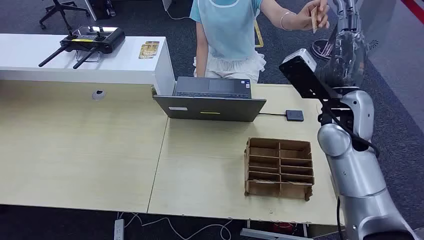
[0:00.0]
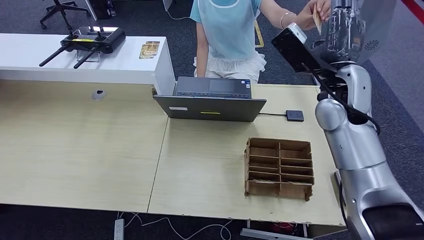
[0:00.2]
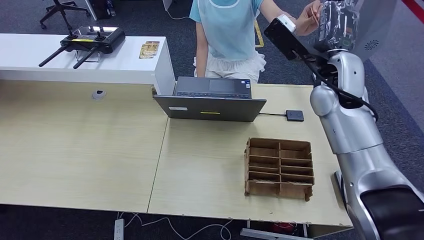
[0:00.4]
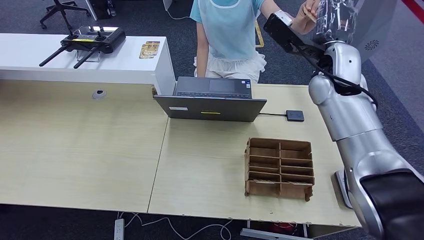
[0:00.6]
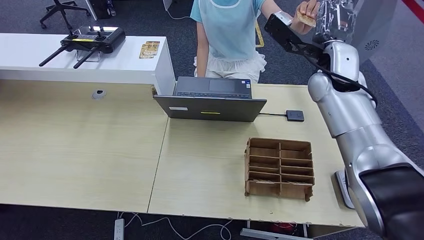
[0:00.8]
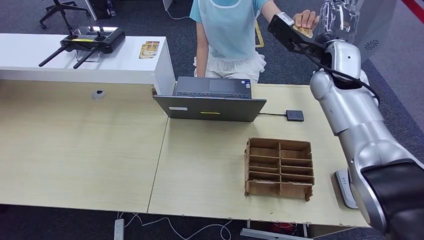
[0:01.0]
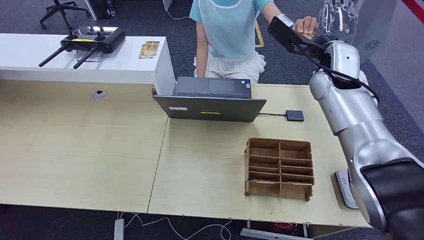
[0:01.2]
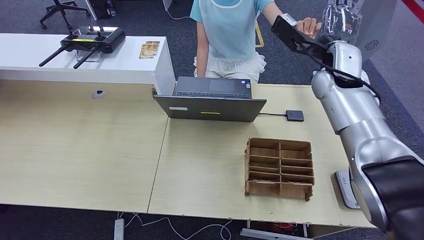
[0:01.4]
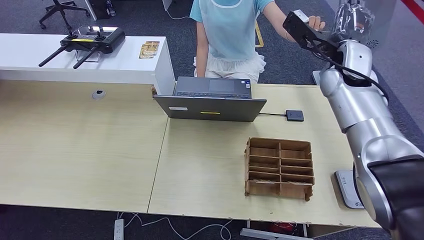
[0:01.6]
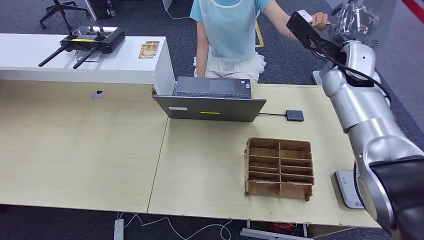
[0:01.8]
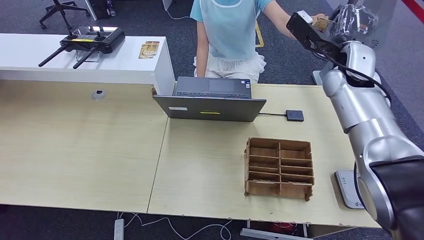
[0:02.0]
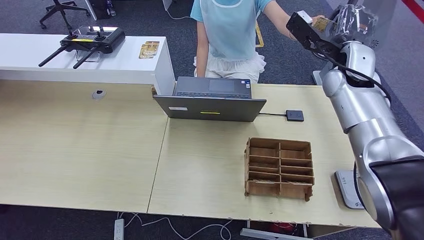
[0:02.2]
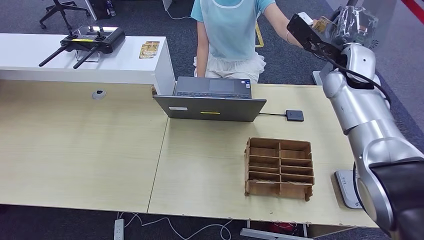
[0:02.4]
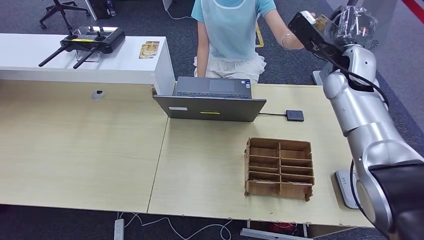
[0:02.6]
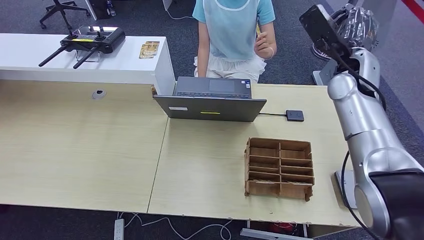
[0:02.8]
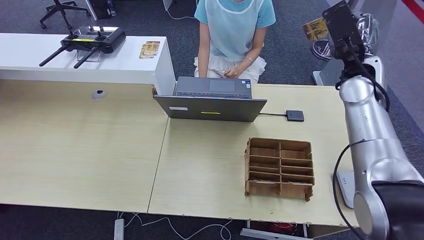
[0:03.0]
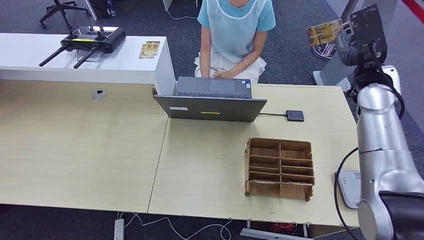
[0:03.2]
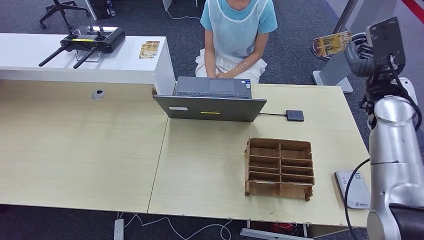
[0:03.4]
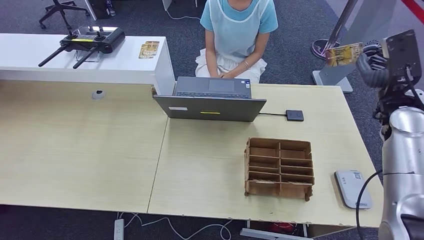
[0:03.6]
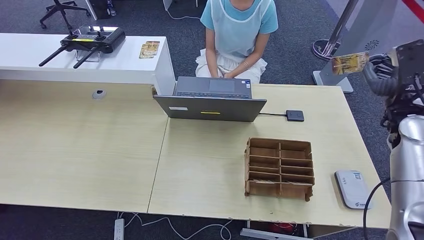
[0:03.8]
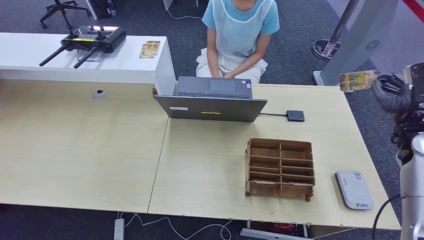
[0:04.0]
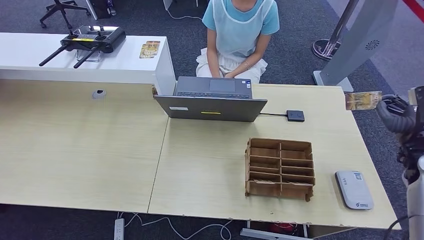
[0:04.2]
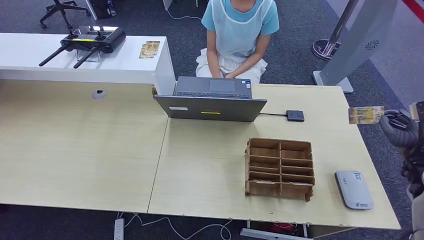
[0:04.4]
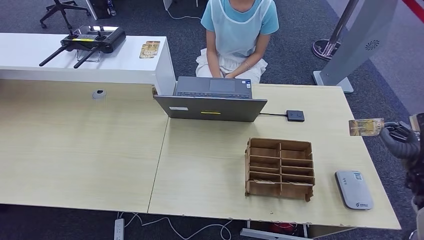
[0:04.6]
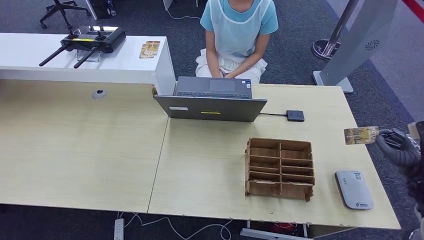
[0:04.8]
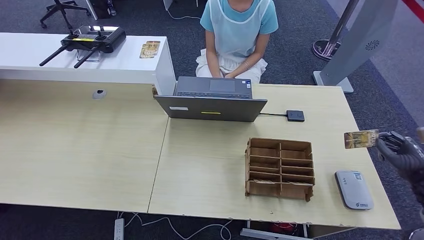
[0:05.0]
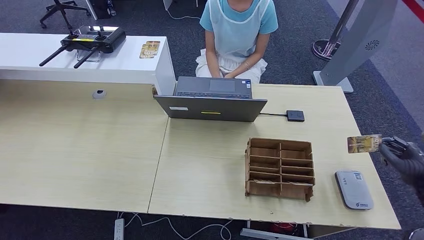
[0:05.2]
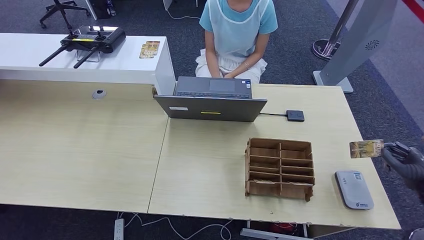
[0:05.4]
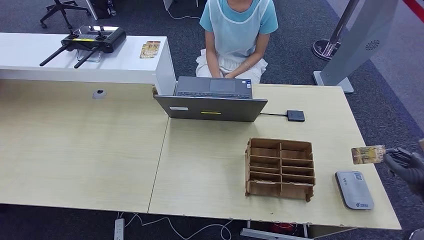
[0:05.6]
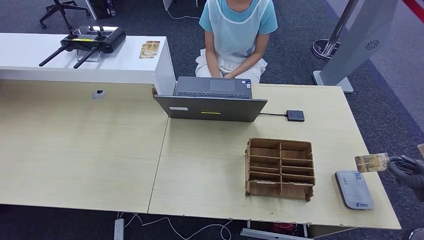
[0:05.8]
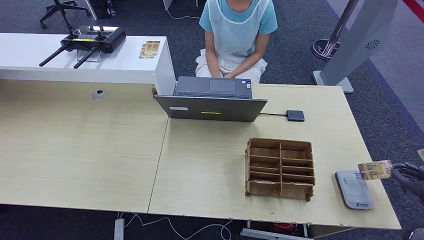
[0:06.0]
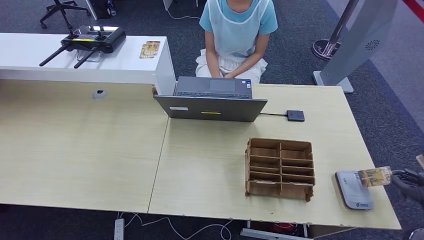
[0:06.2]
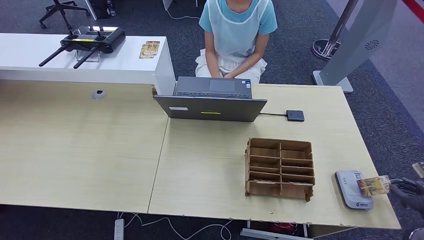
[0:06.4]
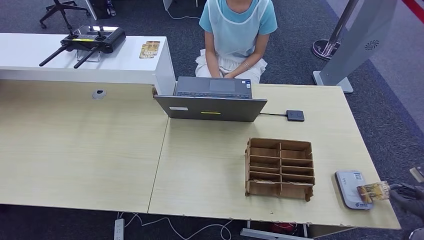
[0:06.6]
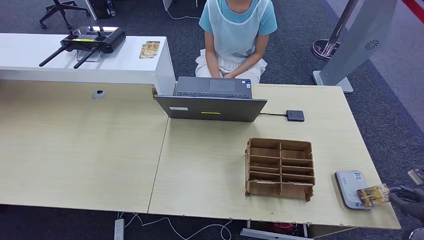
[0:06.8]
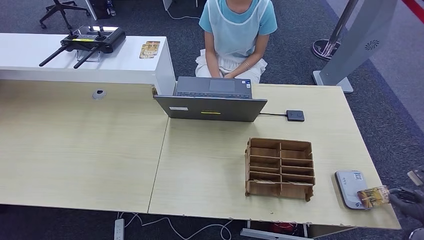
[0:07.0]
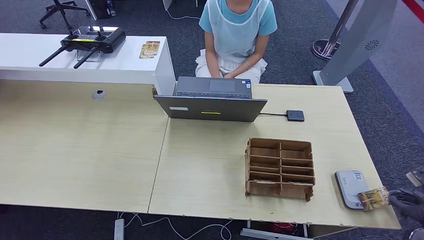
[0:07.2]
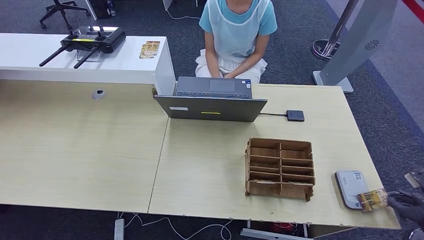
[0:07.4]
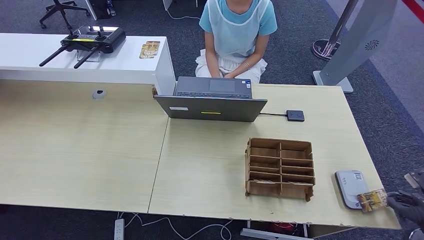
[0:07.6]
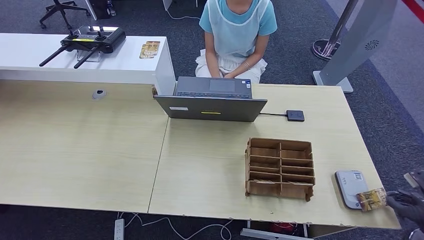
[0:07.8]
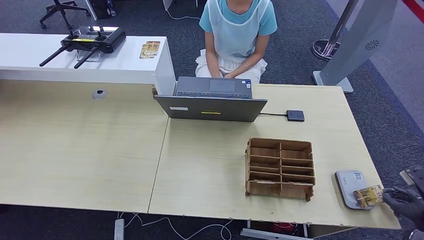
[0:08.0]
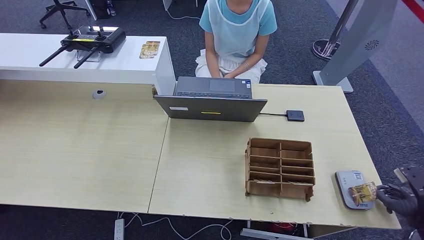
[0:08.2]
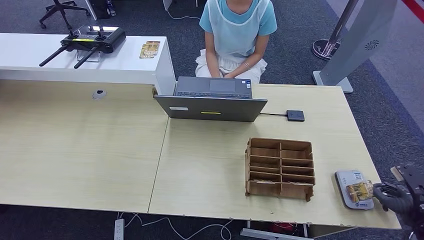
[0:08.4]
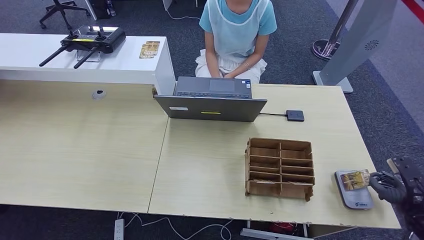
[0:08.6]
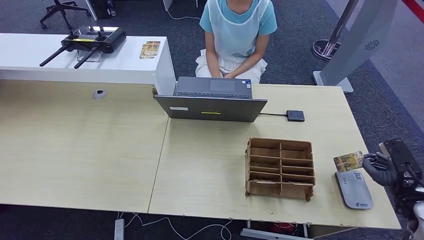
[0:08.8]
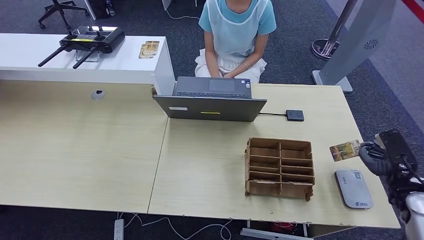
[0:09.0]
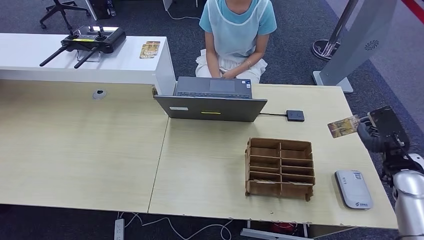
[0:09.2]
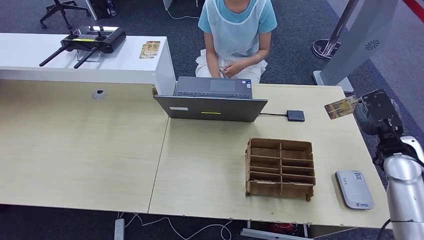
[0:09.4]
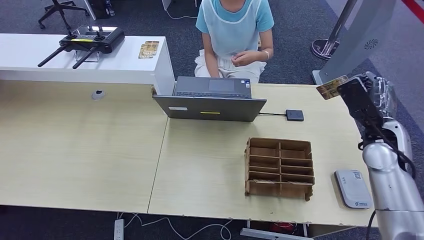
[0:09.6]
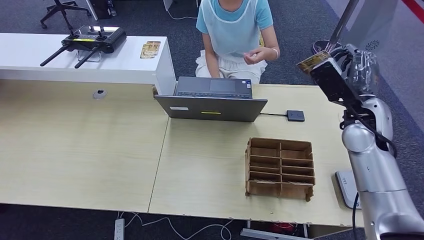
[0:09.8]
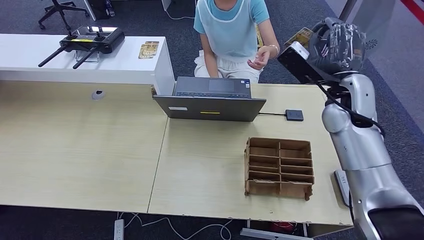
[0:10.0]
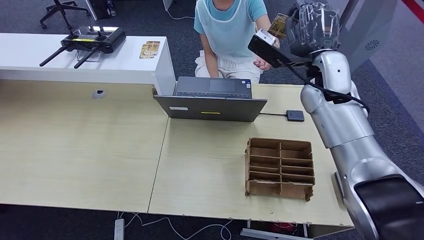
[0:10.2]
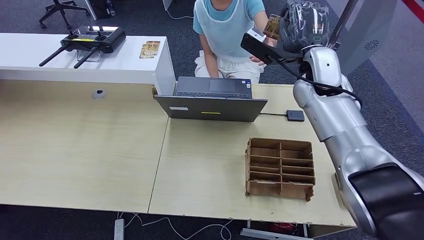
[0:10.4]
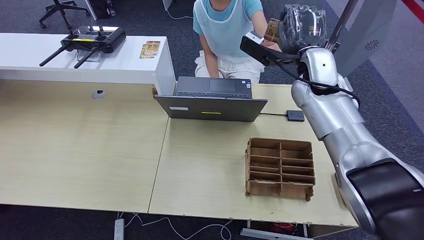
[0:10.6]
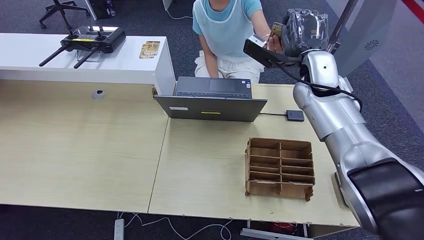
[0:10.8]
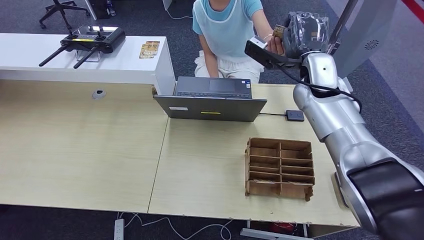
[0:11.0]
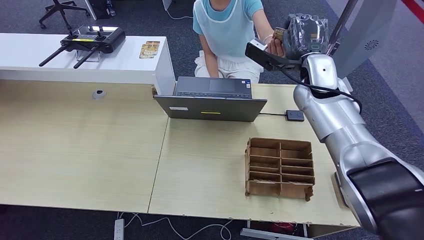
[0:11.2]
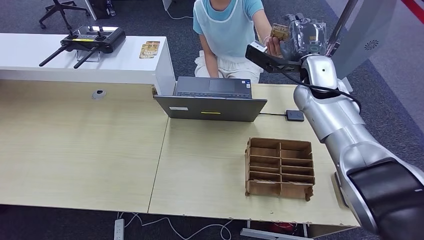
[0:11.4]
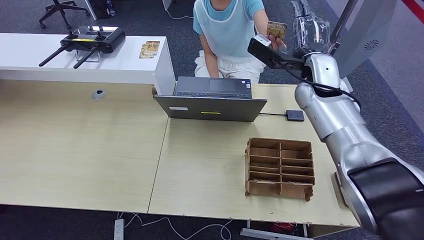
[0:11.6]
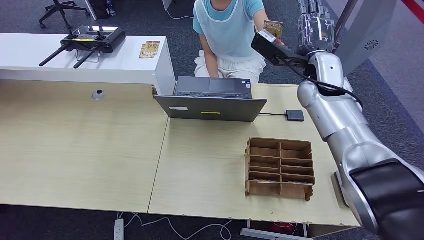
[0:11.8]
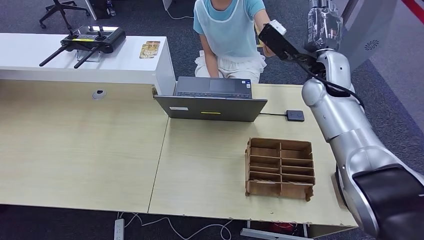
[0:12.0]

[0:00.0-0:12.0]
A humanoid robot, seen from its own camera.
Step, 0:00.0 to 0:03.8: Take the ID card from the person's hand.
Step, 0:04.0 to 0:09.8: Place the ID card on the card reader.
0:03.0 to 0:04.4: The right hand is displaced to the right, backward and downward by about 25 cm.
0:04.4 to 0:06.0: The right hand is displaced backward and to the right by approximately 10 cm.
0:06.0 to 0:07.6: The right hand ends up about 5 cm from where it was.
0:07.6 to 0:09.0: The right hand goes roughly 15 cm forward and to the left.
0:09.0 to 0:10.4: The right hand moves to the left, upward and forward, about 40 cm.
0:10.4 to 0:12.0: The hands stay close to where they were, moving slightly.

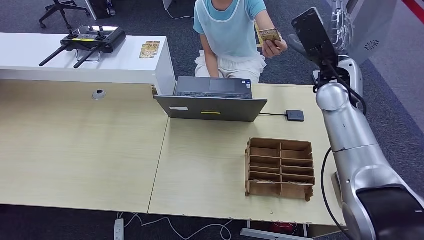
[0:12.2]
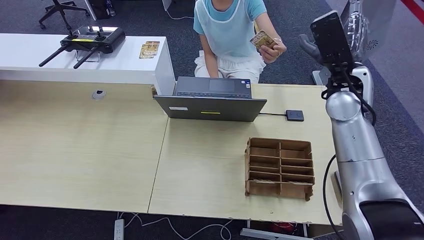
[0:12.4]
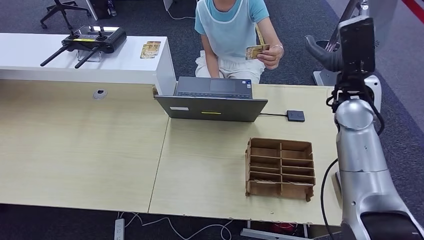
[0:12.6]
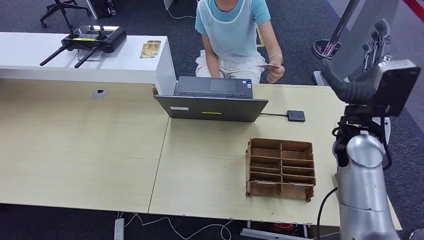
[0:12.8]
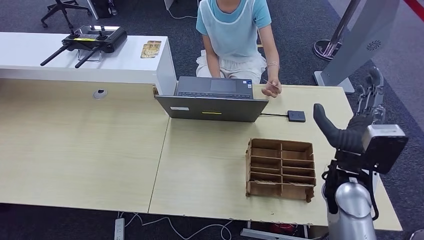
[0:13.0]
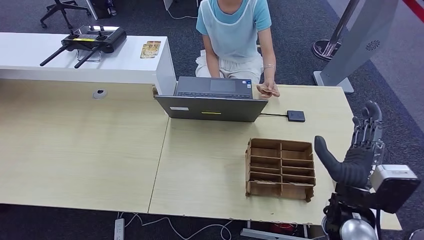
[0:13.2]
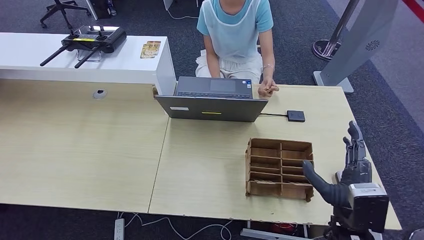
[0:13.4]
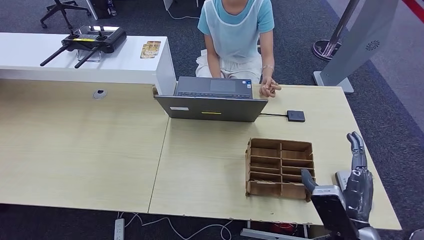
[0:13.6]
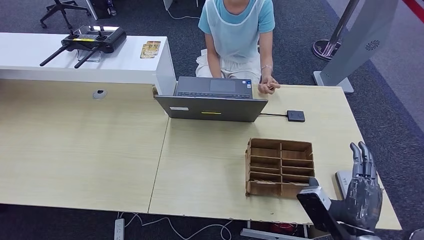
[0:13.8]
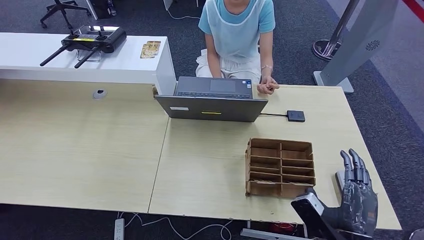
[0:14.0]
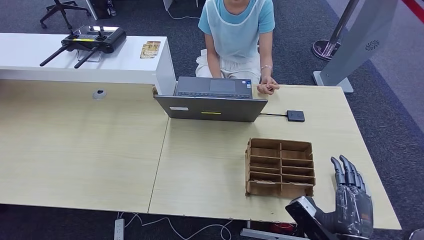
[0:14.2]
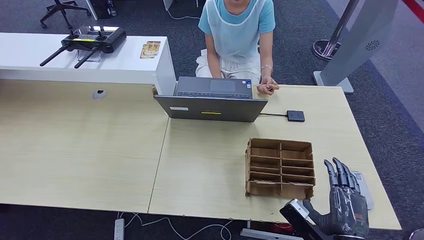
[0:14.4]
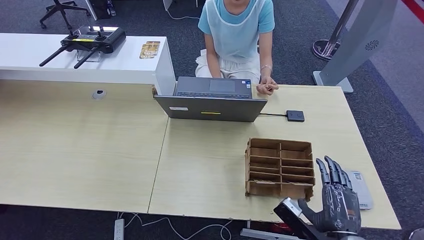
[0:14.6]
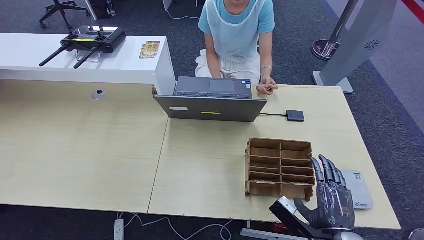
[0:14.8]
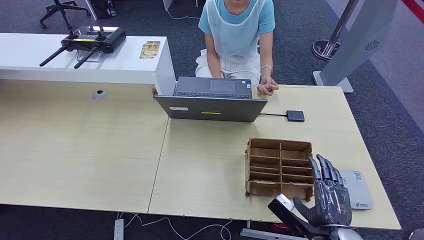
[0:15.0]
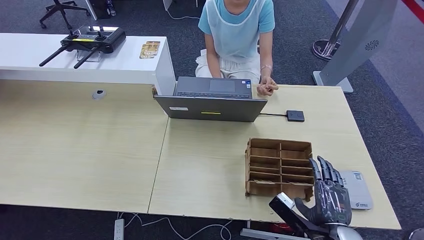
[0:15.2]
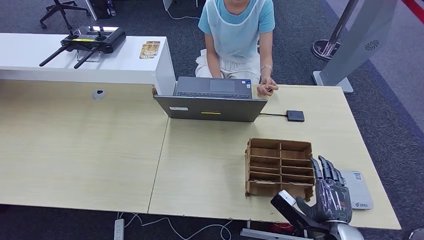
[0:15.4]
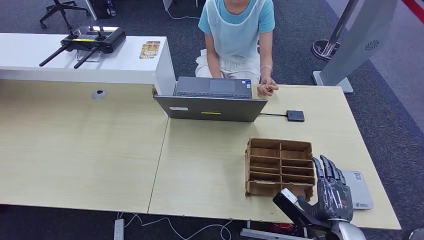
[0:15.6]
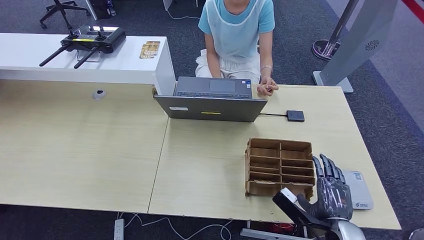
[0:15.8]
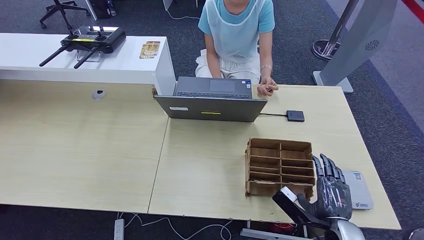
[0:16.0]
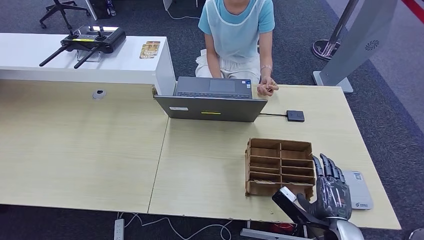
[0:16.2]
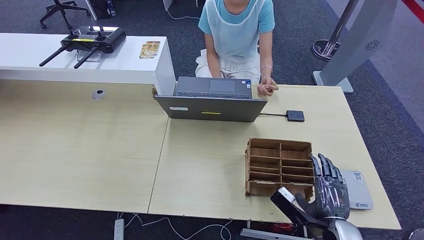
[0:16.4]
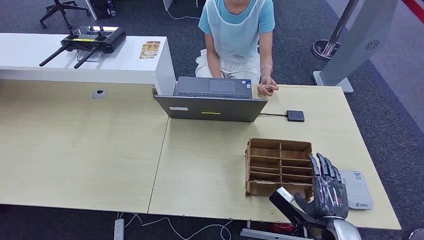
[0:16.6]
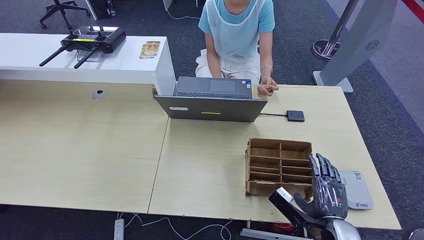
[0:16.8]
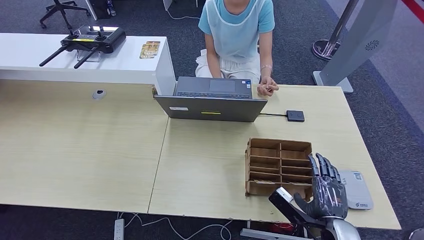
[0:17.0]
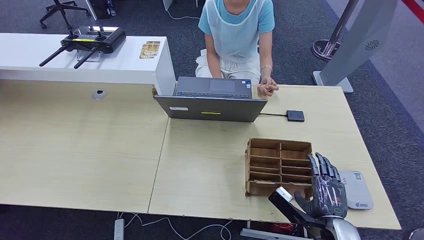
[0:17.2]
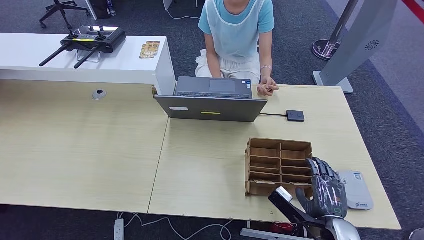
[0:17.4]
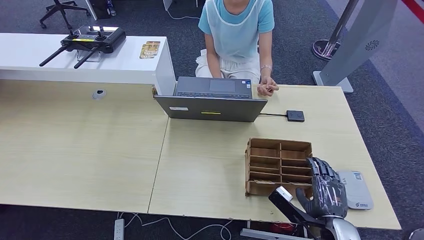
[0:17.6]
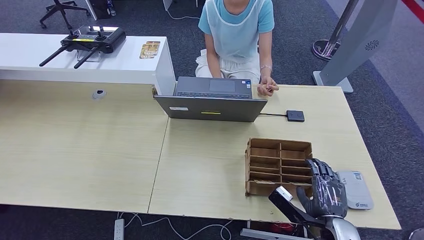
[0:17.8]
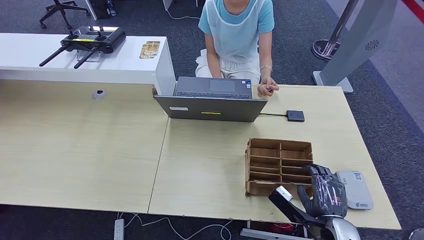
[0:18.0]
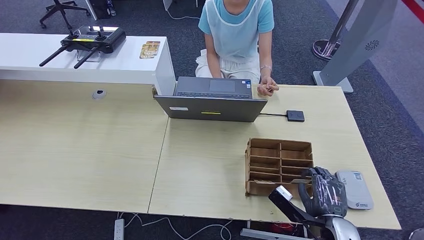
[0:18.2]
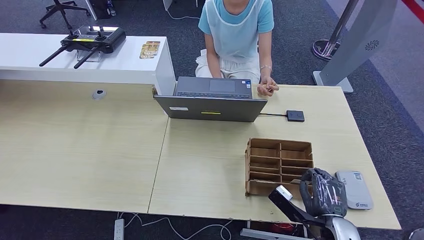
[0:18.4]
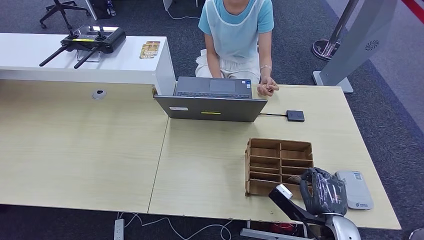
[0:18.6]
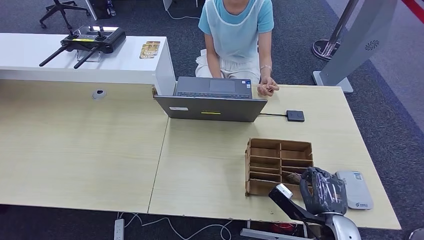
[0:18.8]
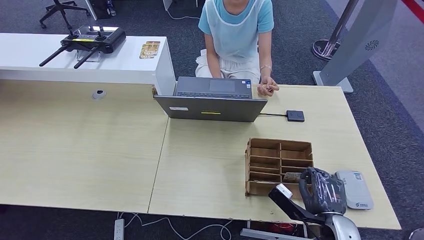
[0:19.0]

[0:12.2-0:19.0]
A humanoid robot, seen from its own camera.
0:12.2 to 0:13.6: The right hand moves backward and downward, approximately 35 cm.
0:15.0 to 0:16.2: There are only small adjustments of the hands.
0:16.2 to 0:19.0: Both hands stay put.
